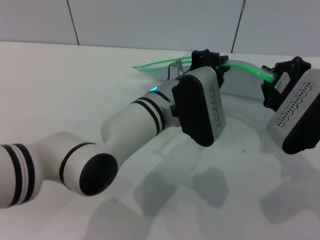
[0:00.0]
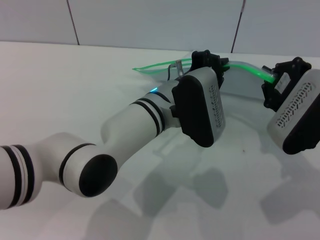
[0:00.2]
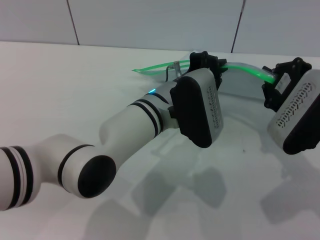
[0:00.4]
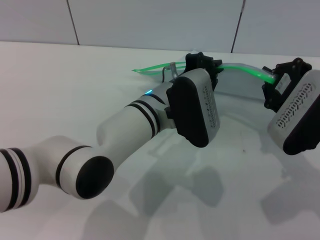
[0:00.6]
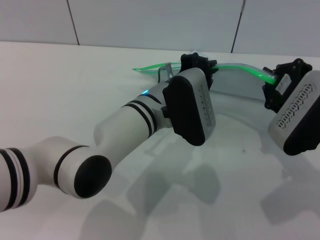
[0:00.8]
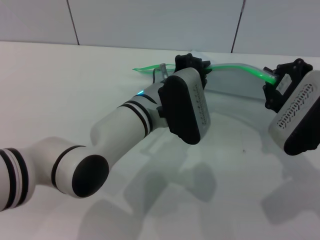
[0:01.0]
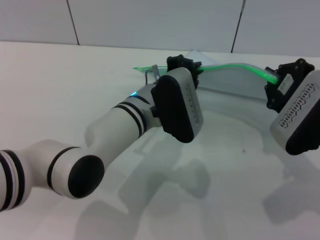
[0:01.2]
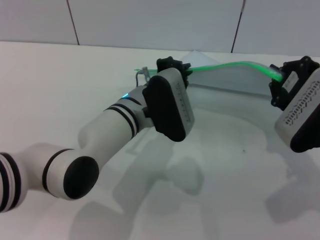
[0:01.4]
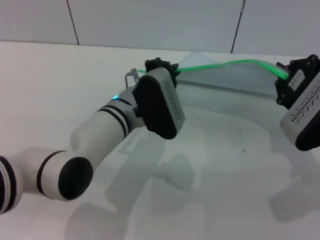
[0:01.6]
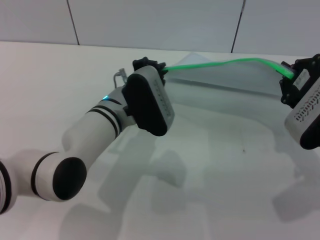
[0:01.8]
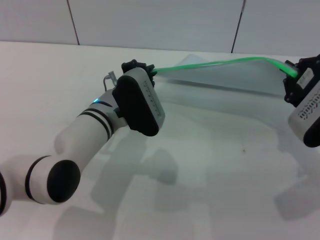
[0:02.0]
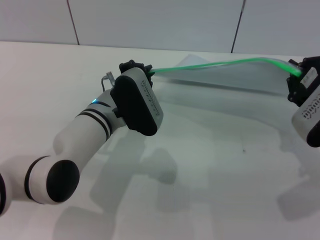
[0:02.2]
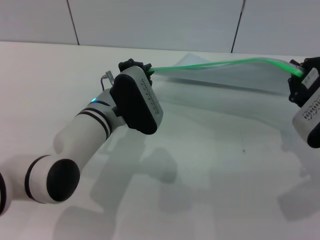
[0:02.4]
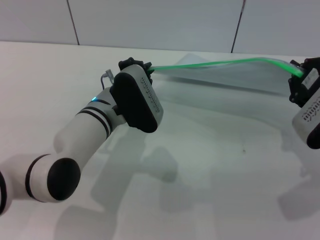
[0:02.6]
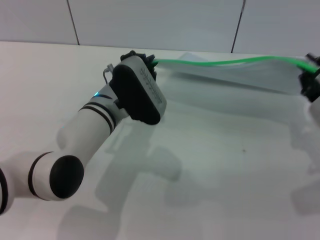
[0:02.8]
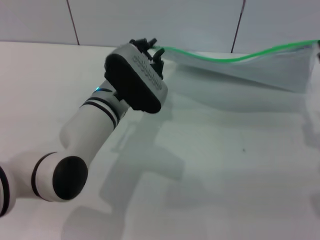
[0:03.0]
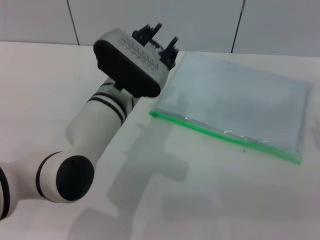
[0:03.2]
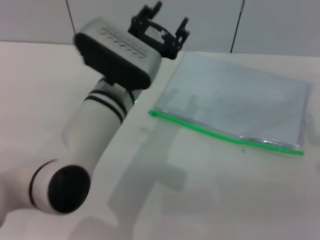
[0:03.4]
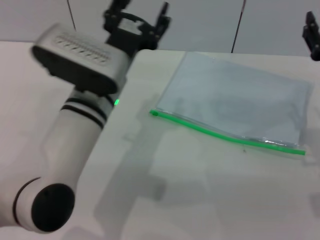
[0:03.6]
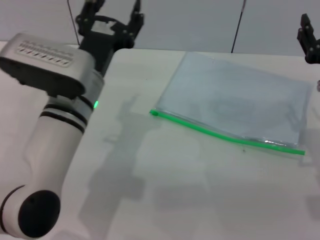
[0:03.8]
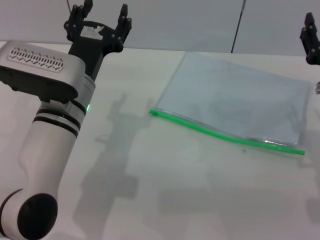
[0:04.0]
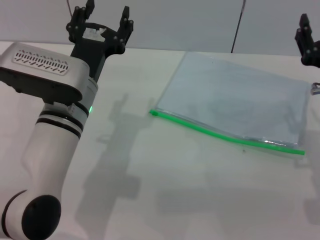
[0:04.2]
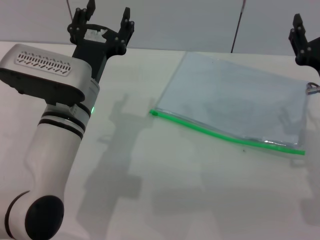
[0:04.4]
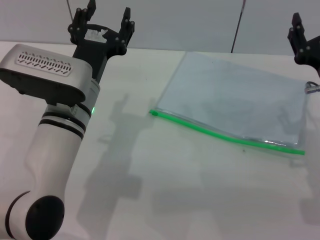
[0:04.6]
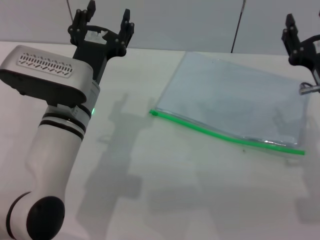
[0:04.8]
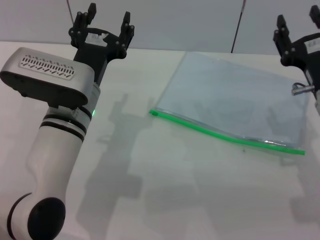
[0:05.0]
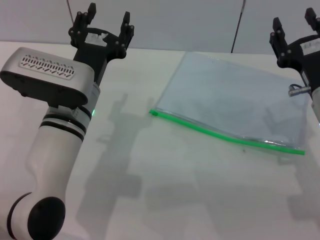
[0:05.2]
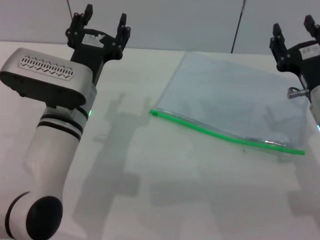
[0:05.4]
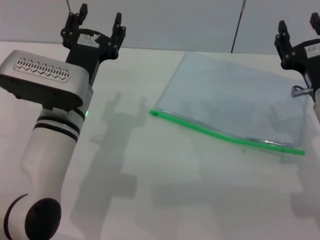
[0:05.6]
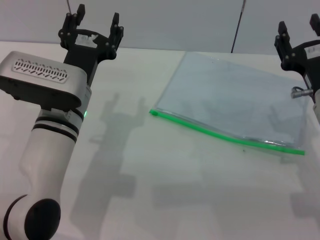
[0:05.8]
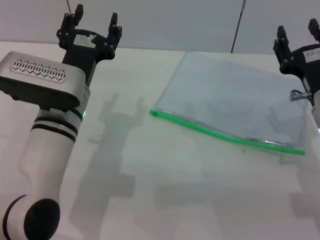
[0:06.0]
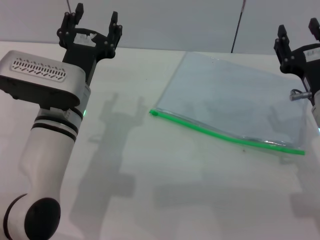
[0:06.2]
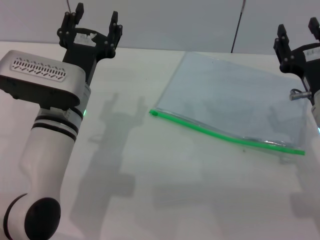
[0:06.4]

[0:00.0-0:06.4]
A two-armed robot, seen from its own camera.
Step, 0:00.0 to 0:03.2: Pulling up the zipper on the transparent plastic bag with the left gripper to close it.
Step, 0:03.4 to 0:04.6: Place the transparent plastic bag.
0:00.0 to 0:01.6: The left gripper shifts approximately 5 cm to the left.
0:01.6 to 0:03.2: The right gripper ends up approximately 5 cm from where it was, and opens its fingers.
0:03.2 to 0:04.8: Both grippers travel together to the left, some 5 cm. The left gripper opens up.
0:04.8 to 0:06.4: The grippers make only small movements.
